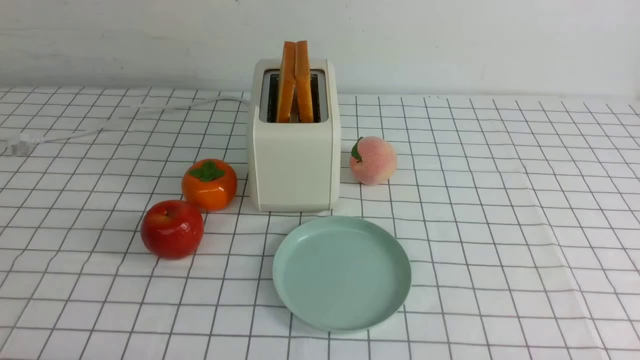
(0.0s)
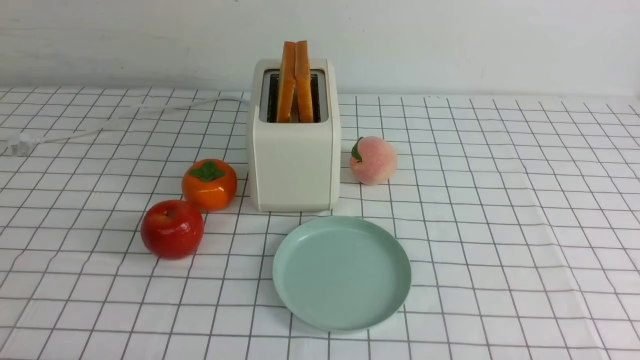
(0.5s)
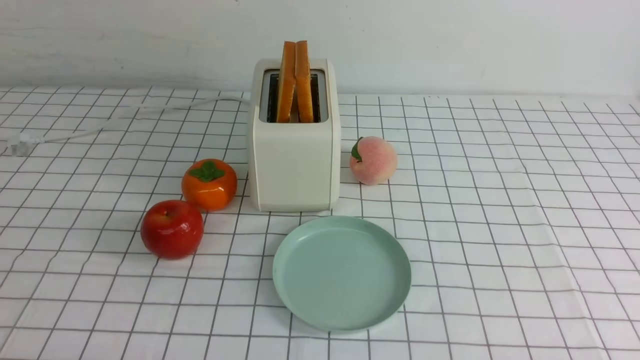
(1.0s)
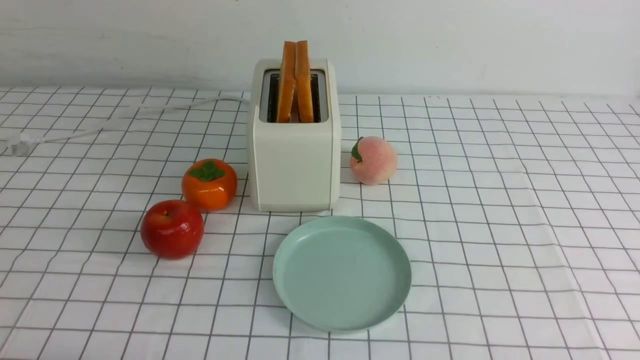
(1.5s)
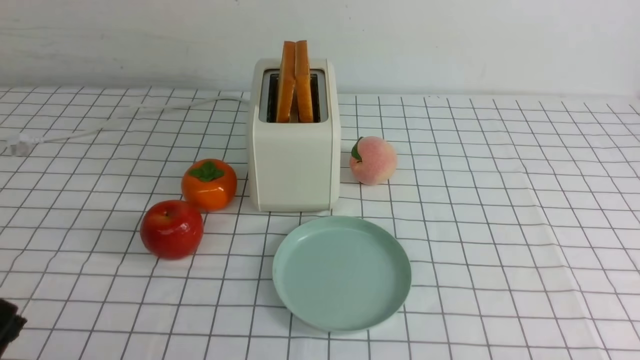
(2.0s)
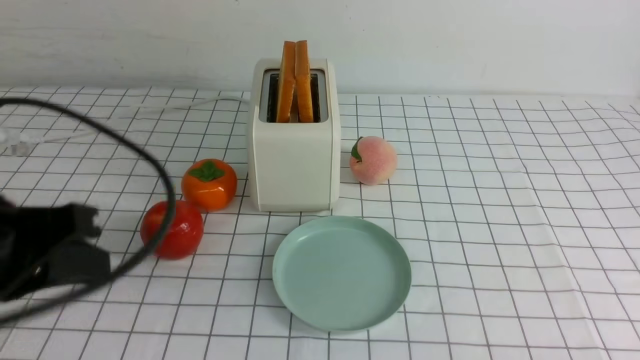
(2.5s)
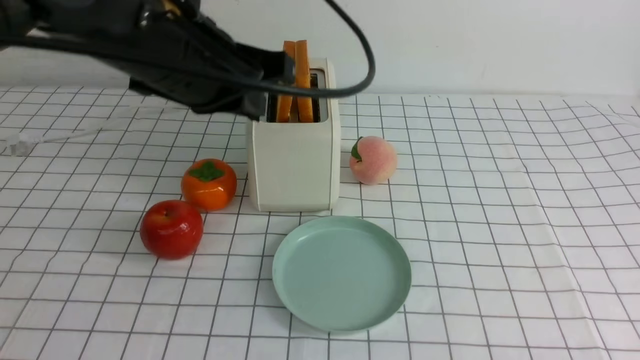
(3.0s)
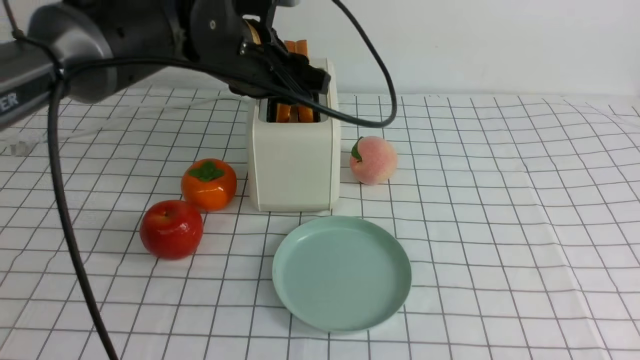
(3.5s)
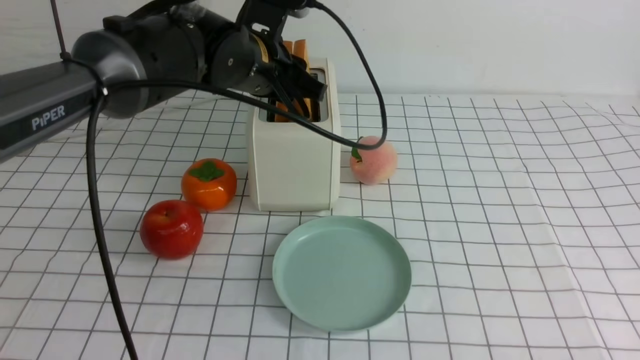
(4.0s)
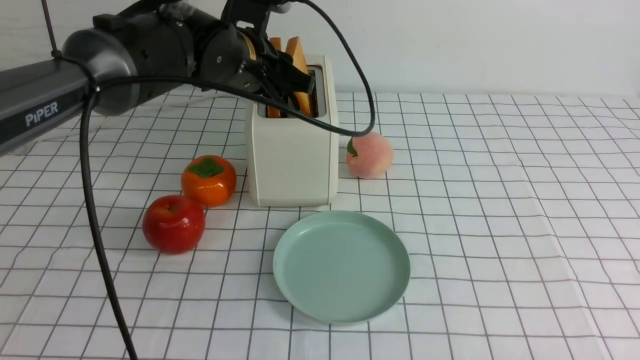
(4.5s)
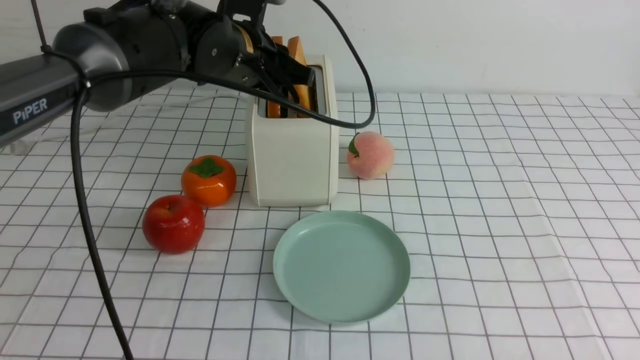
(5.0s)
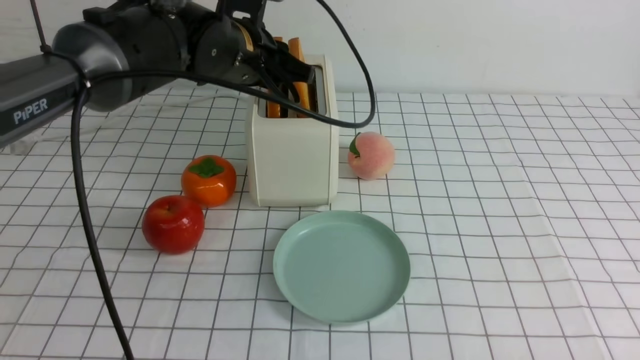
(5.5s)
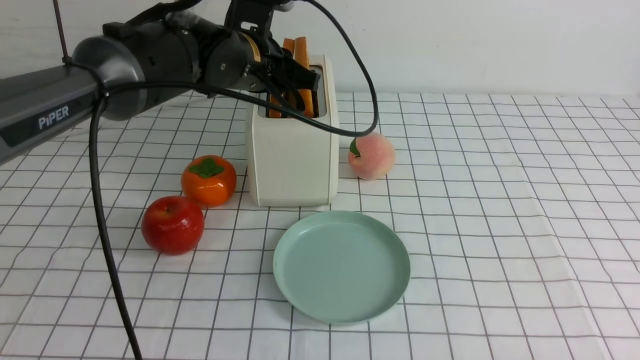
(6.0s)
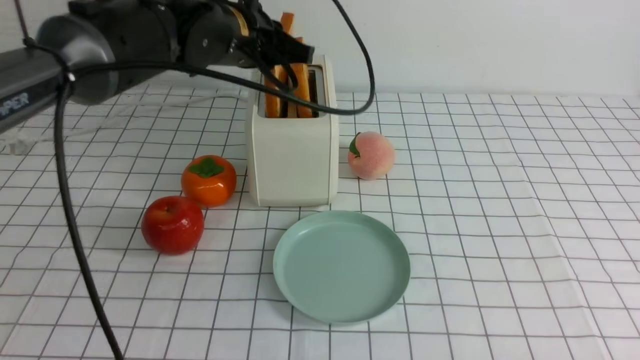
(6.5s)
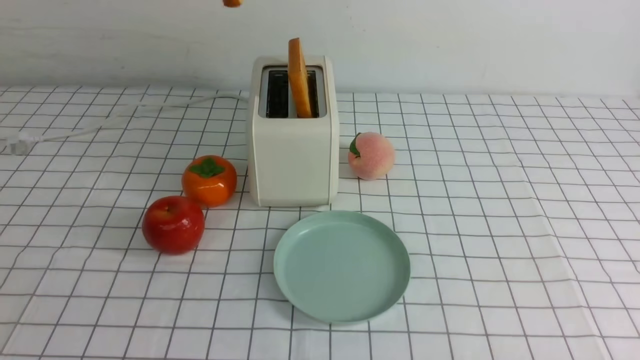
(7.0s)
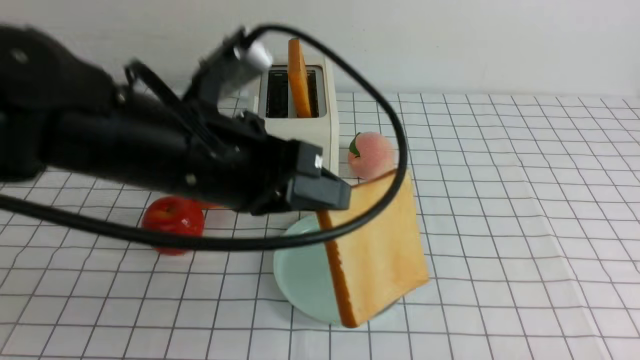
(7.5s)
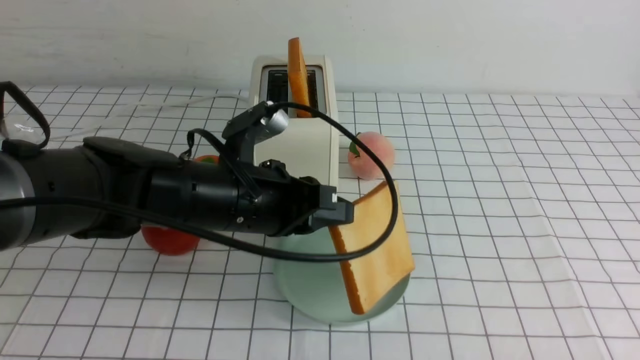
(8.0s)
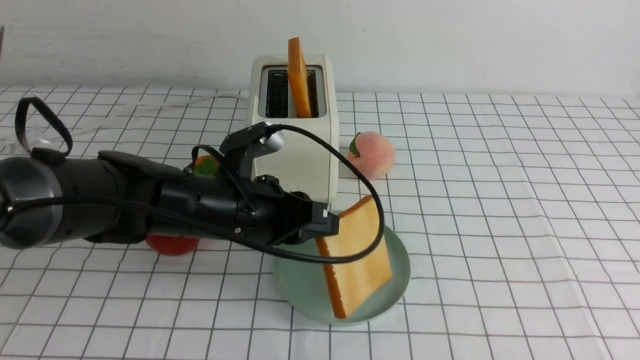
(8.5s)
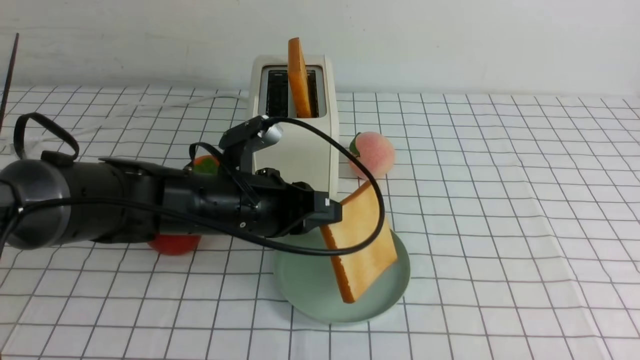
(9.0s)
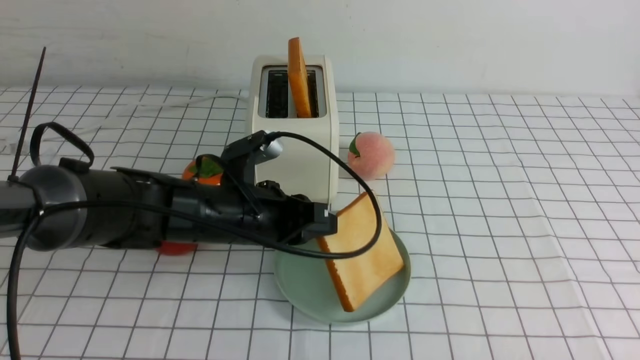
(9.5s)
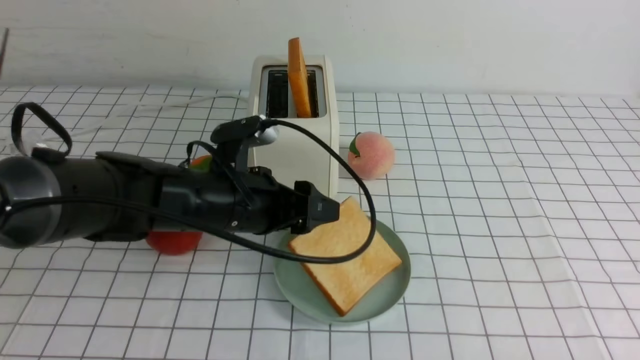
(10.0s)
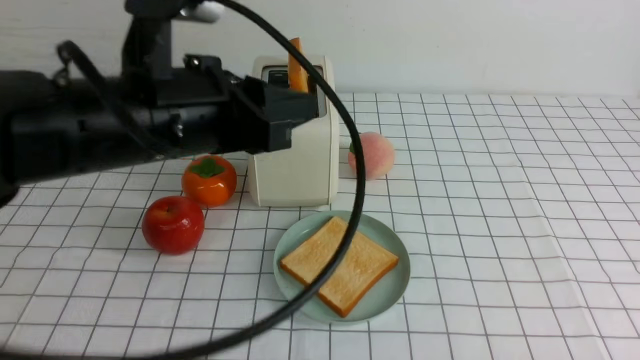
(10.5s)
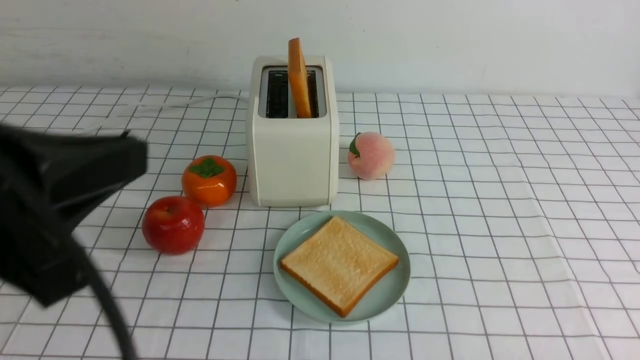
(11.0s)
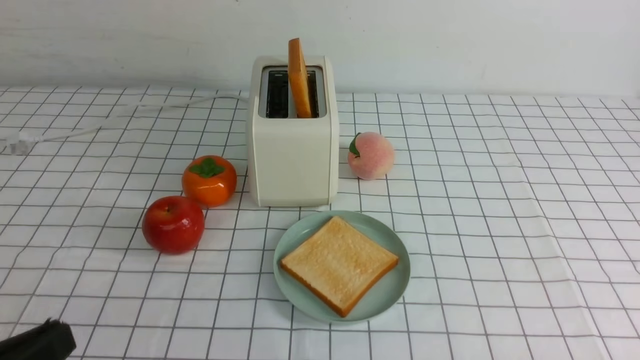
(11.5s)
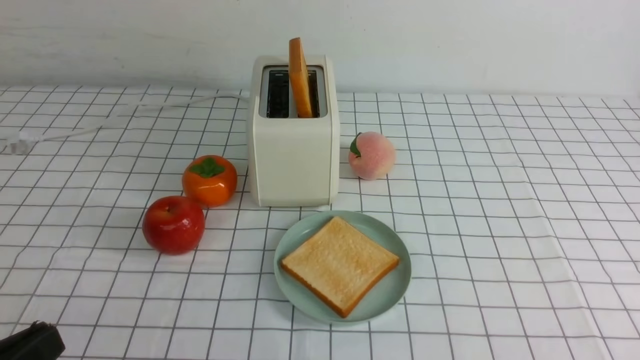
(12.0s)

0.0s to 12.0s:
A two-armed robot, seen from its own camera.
Task of the whole recording: take toasted bread from bread machine on white checkered table place on plate.
Step, 0.0s to 6.5s: use the left arm to take out a slice of bread.
Step, 7.0s to 10.0s: use the left arm to put a slice of bread into the empty plate.
2.0s to 4.0s: The left gripper is displaced forward and to the right by roughly 40 cm, and opens up.
4.0s to 6.0s: The left gripper closes its fingers.
6.0s to 8.0s: The left gripper shifts some 15 cm backward, and moves about 15 cm upward and comes back.
8.0s to 10.0s: The left gripper opens up.
10.0s to 12.0s: The left gripper goes some 30 cm backward and to the left, and closes its fingers, while the right gripper goes some 5 cm upward.

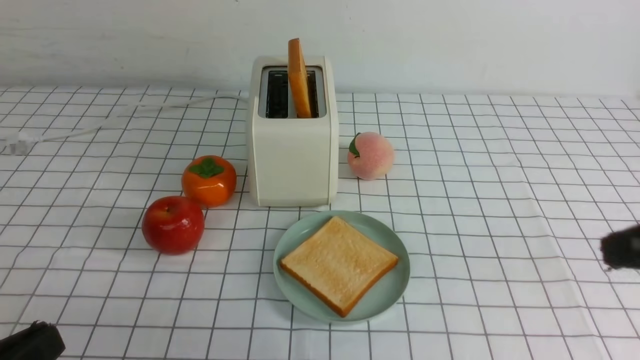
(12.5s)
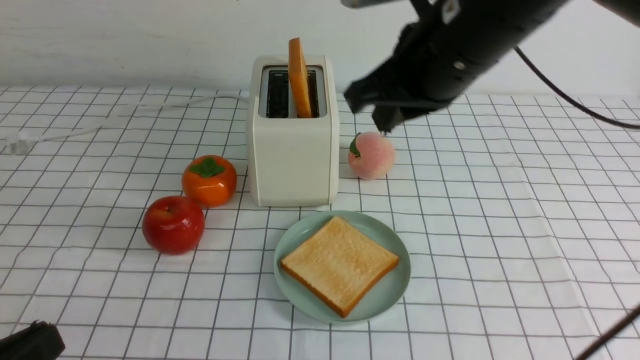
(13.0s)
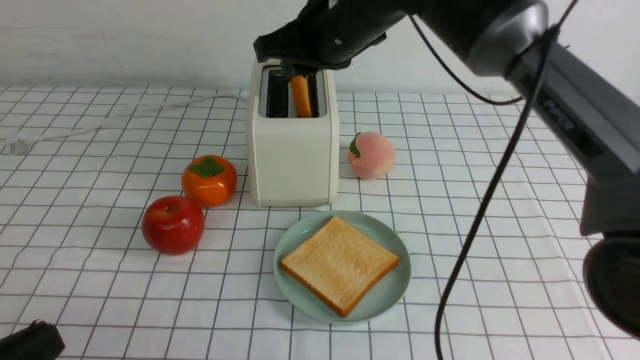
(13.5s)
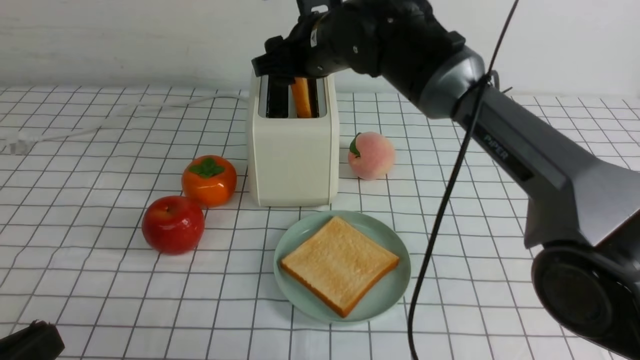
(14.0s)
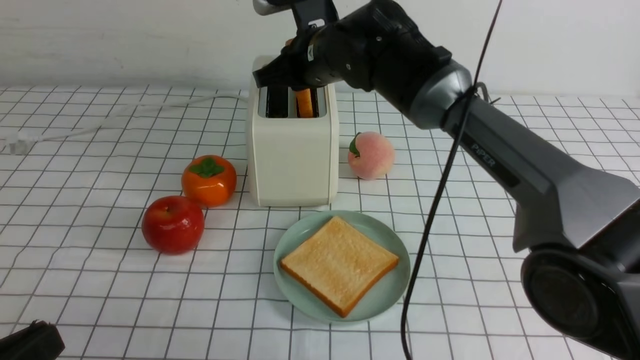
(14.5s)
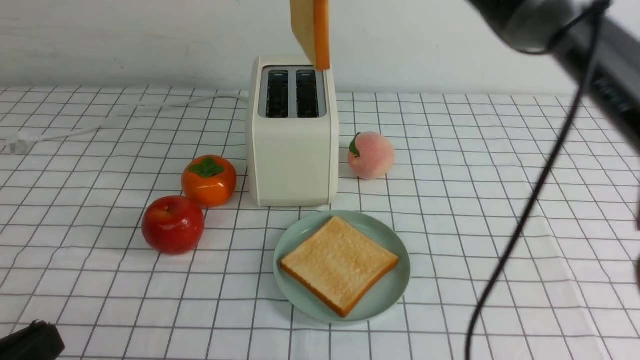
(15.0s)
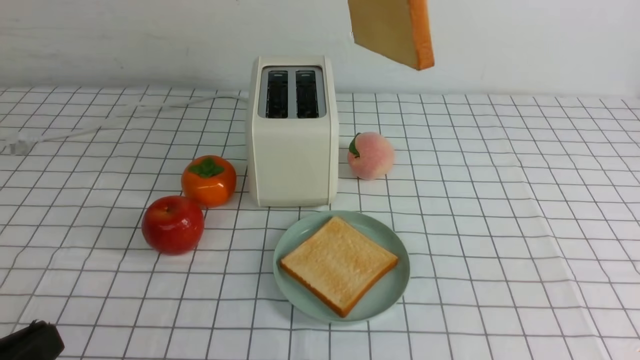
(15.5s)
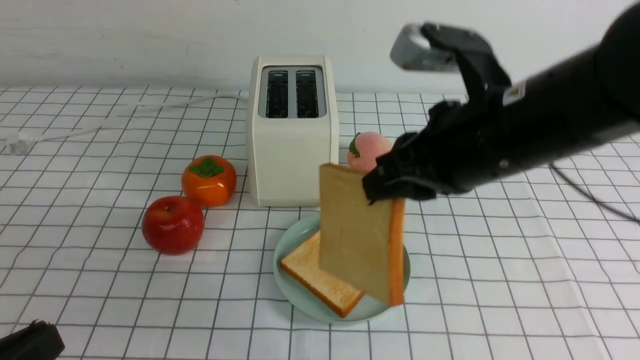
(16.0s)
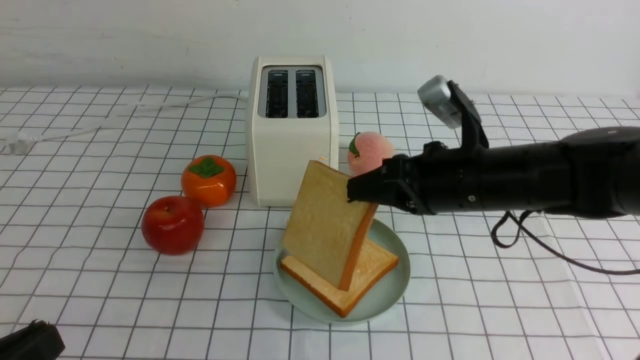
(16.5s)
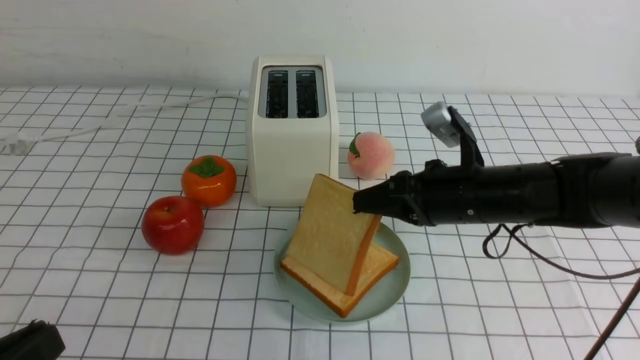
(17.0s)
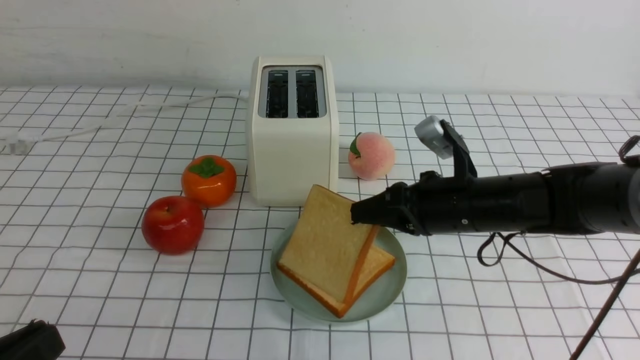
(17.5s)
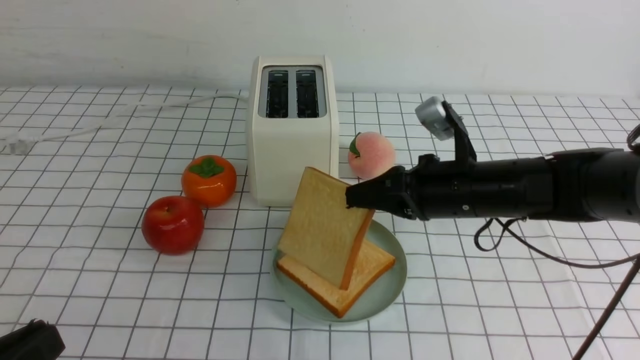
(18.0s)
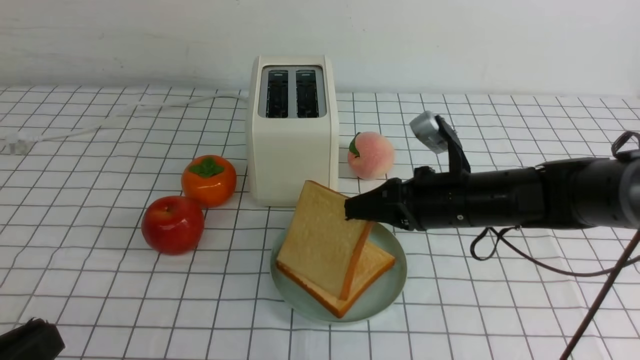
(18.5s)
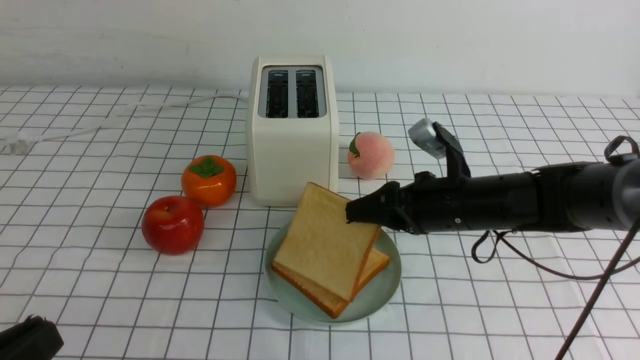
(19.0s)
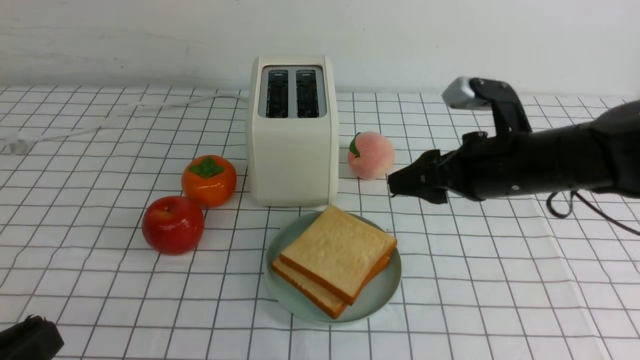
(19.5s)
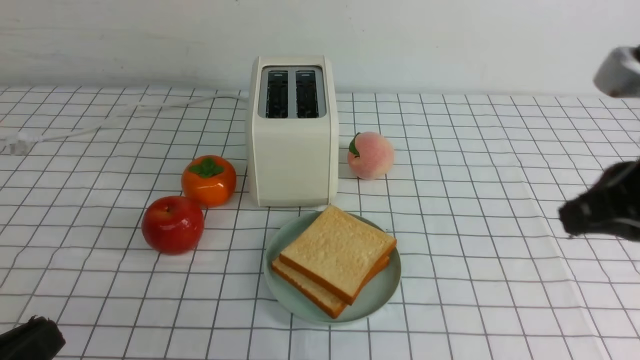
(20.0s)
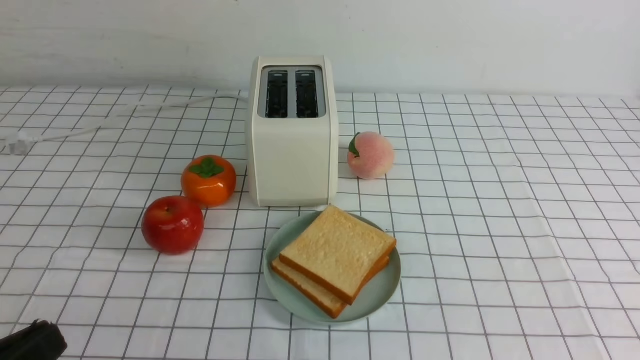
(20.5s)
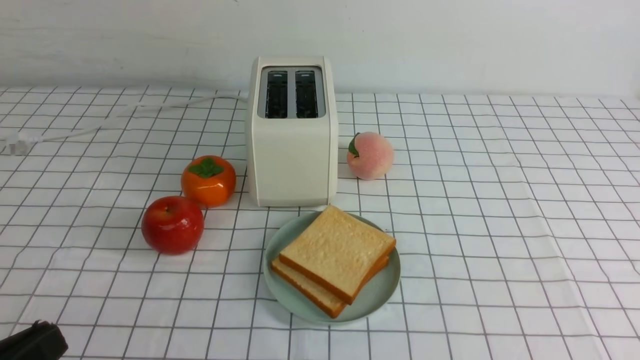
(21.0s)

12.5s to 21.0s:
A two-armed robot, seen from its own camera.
Task of the whole recording: take toasted bread from bread machine on white checkered table place on plate.
Step, 12.5s to 14.5s: use the right arm to take out a slice of bread.
Step, 15.0s to 19.5s: use the right arm to put a slice of bread into the plate.
12.5s to 14.5s: The right gripper heads forward and to the left, covering roughly 40 cm, and opens and closes again.
14.5s to 16.5s: The right gripper heads backward and to the right, covering approximately 20 cm, and moves some 20 cm upward and comes back.
16.5s to 19.0s: The right gripper moves downward, approximately 5 cm, and opens up.
19.0s to 21.0s: The right gripper shifts approximately 30 cm backward, and closes.
